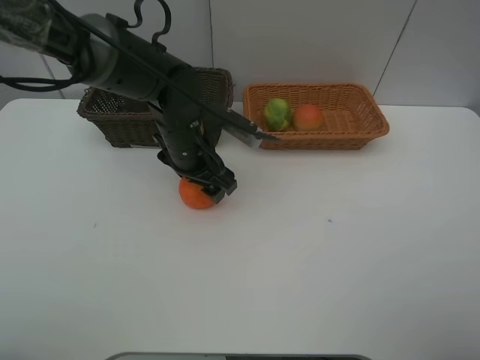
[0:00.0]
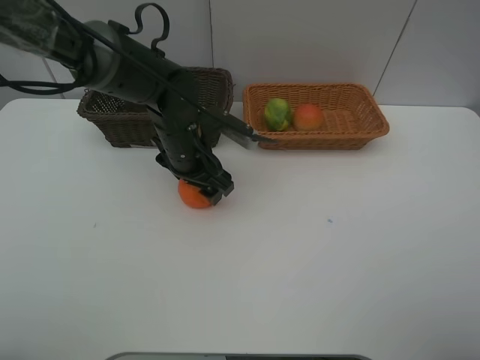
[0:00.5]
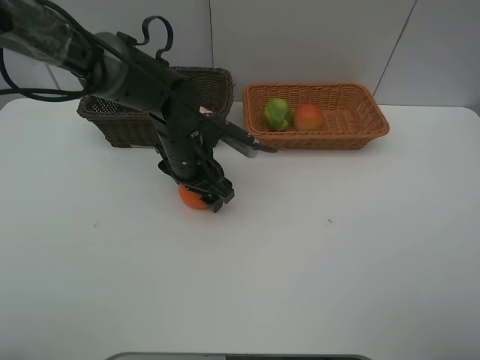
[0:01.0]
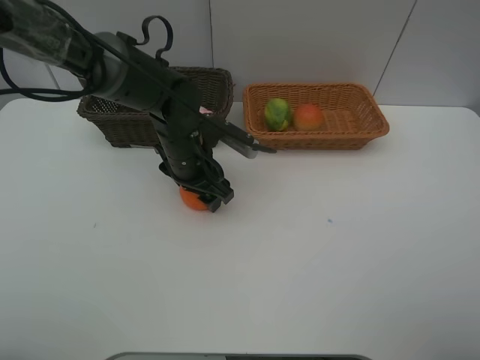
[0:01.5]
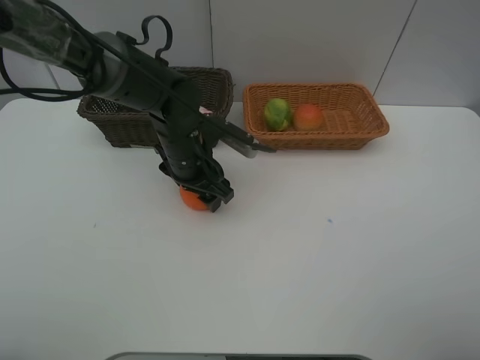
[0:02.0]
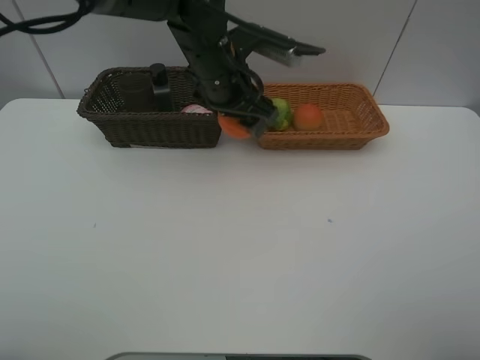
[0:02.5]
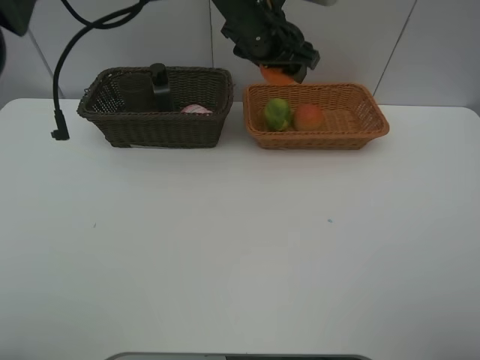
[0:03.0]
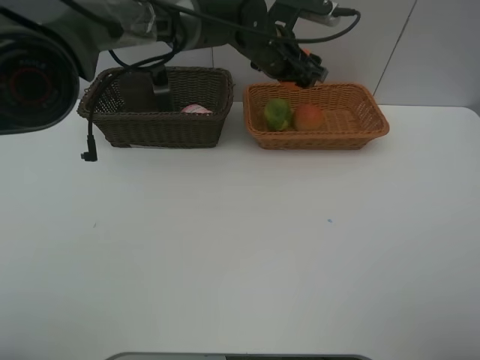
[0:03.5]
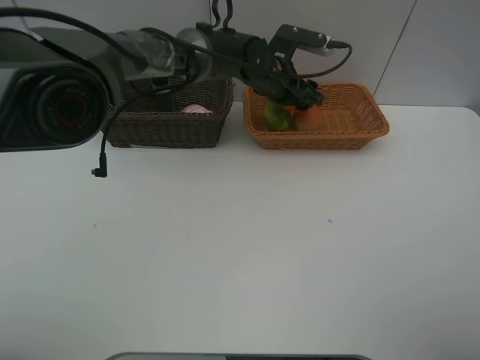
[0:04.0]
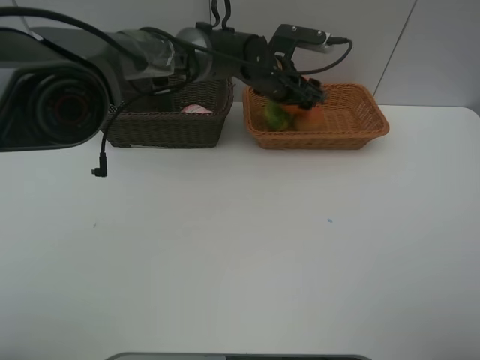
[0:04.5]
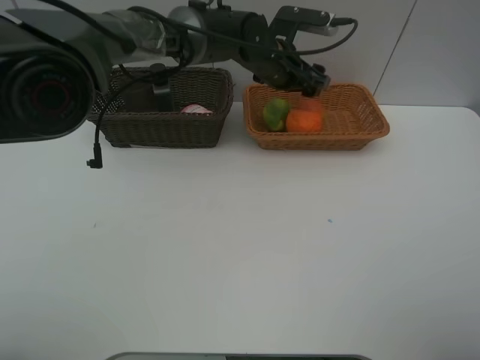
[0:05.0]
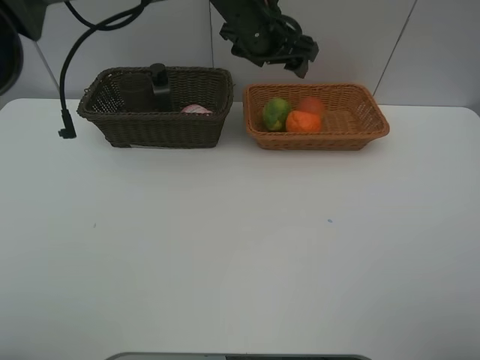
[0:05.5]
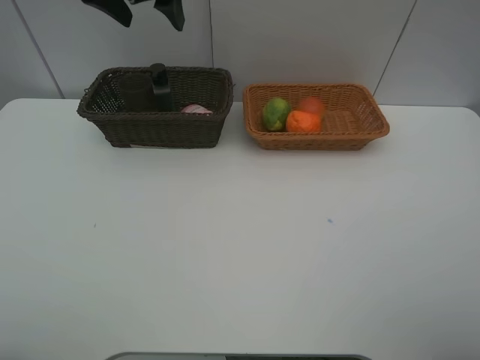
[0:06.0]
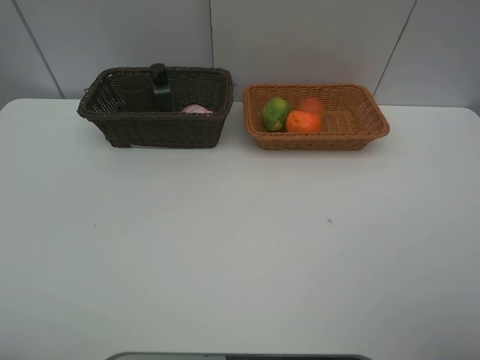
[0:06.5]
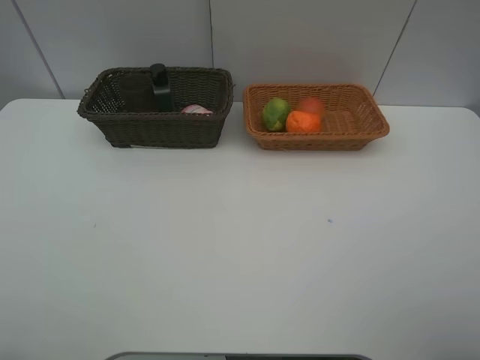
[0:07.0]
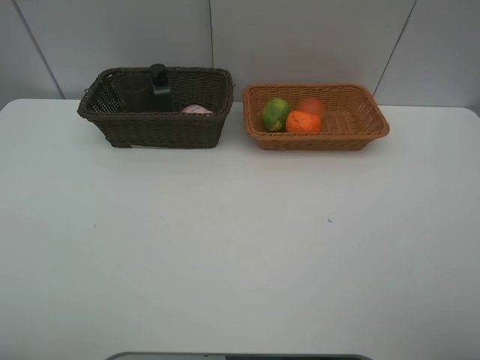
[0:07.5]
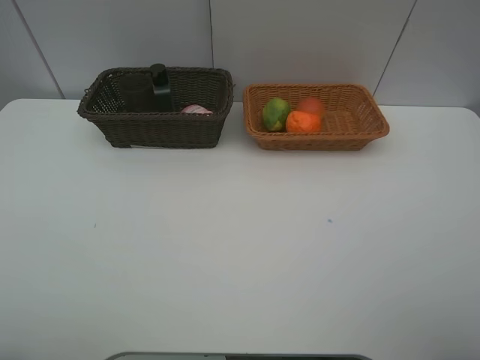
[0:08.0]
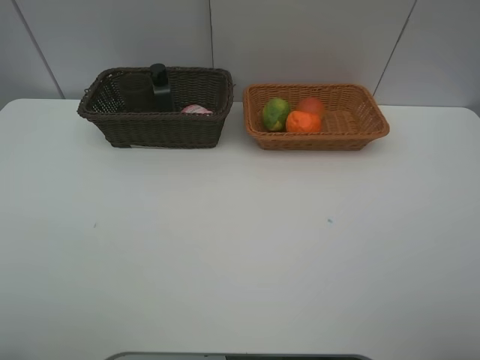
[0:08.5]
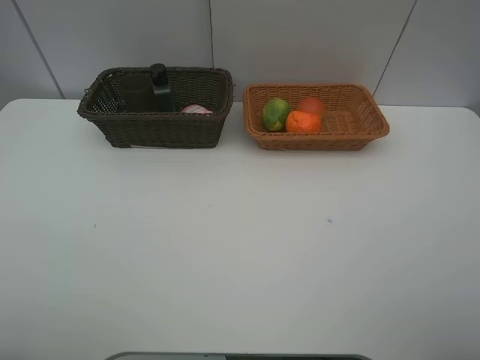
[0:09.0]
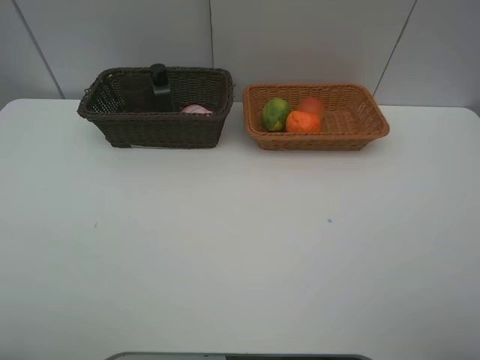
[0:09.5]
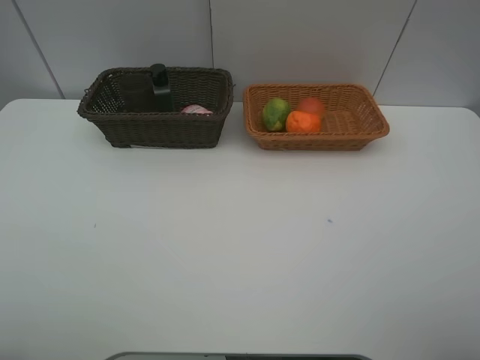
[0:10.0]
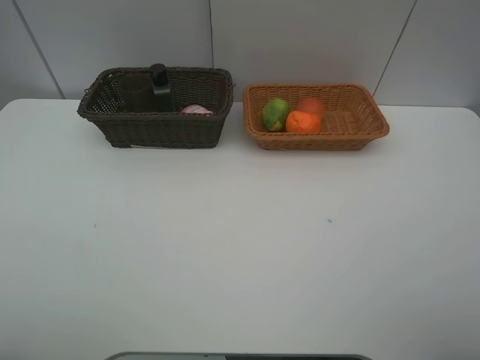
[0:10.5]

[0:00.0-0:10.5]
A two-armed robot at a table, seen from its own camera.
Task of the whole recording: place multiple objects separately in different baskets.
0:00.0 to 0:02.0: The grippers make only small movements.
0:02.0 to 0:04.0: The left gripper goes approximately 15 cm forward and to the right, and moves about 15 cm upward and comes back.
0:04.0 to 0:06.5: The left gripper goes roughly 50 cm to the left, backward and upward.
